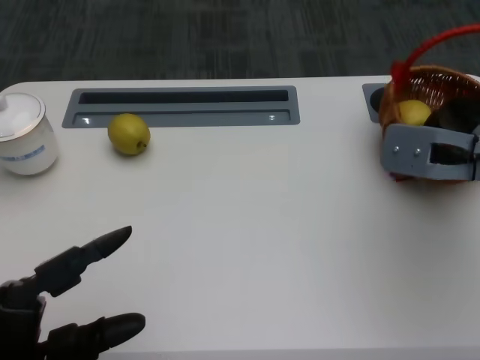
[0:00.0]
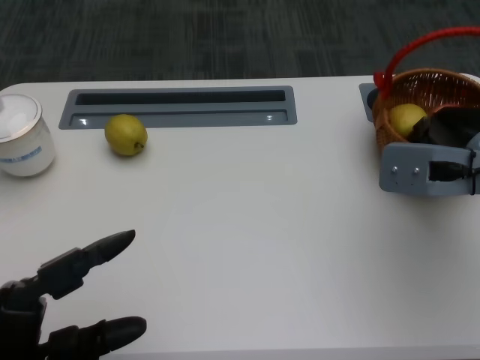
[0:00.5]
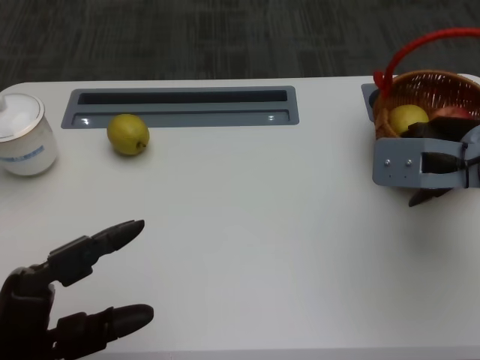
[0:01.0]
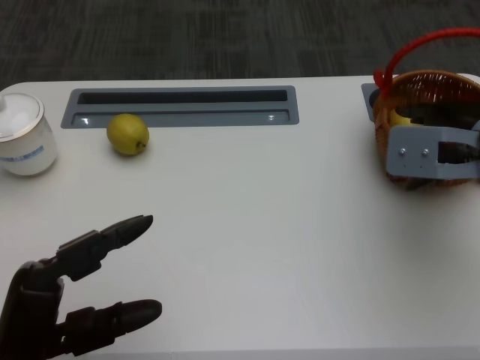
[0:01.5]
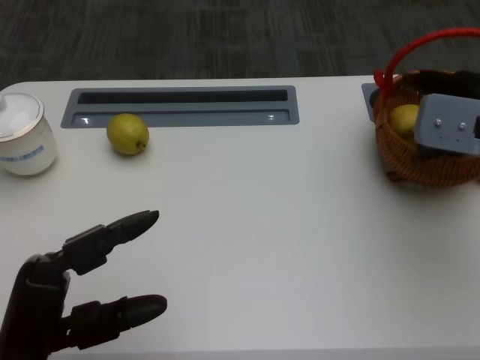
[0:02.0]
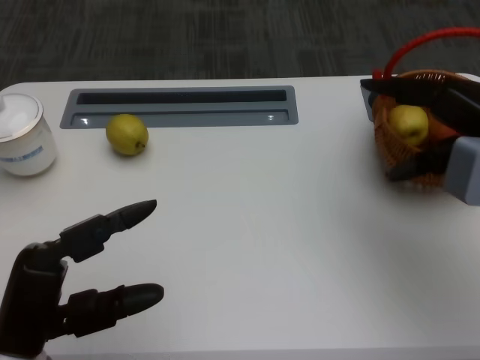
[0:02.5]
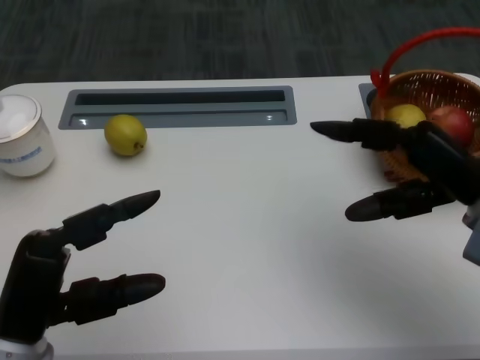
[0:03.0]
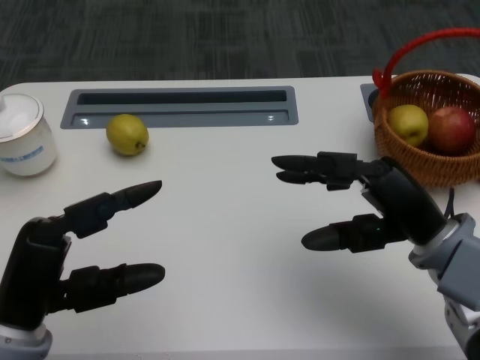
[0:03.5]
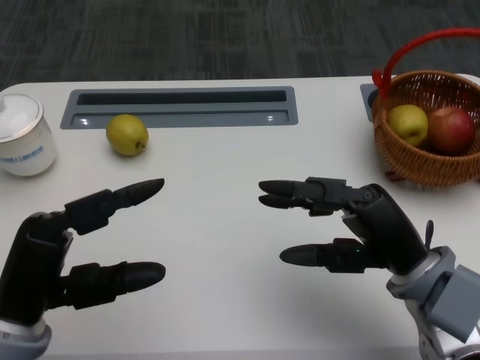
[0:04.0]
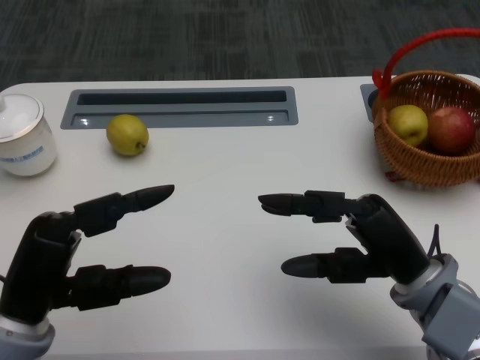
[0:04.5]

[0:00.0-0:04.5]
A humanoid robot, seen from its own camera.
0:00.0 to 0:02.0: The hands stay close to where they were, moving slightly.
0:02.0 to 0:04.5: The right hand moves backward, downward and to the left, roughly 15 cm.
